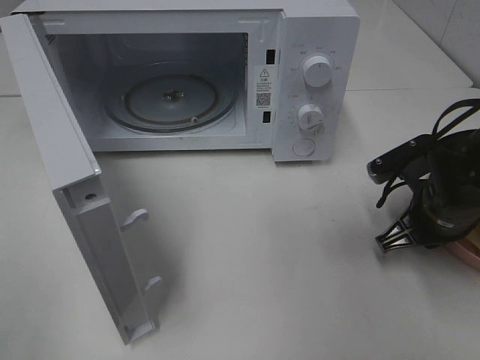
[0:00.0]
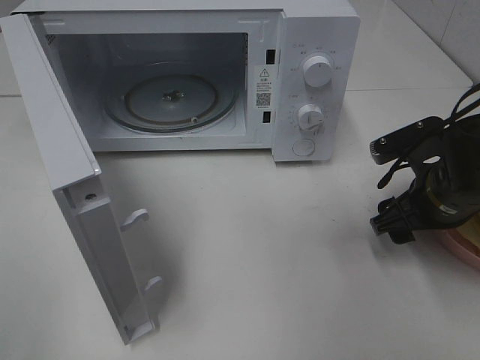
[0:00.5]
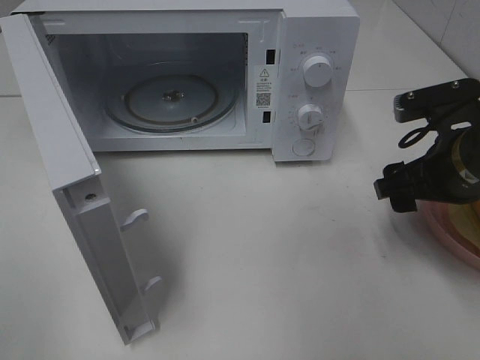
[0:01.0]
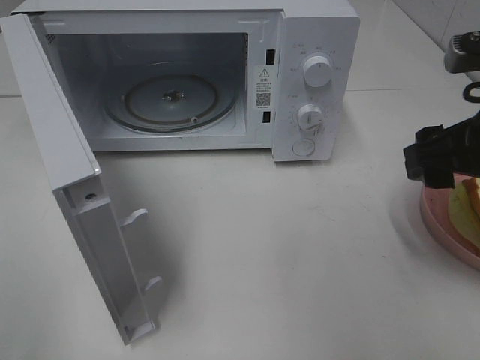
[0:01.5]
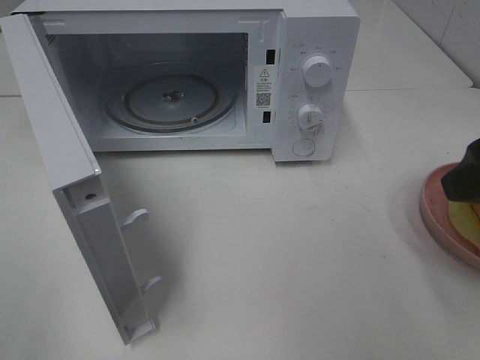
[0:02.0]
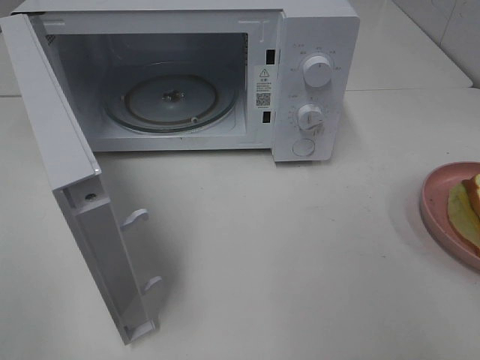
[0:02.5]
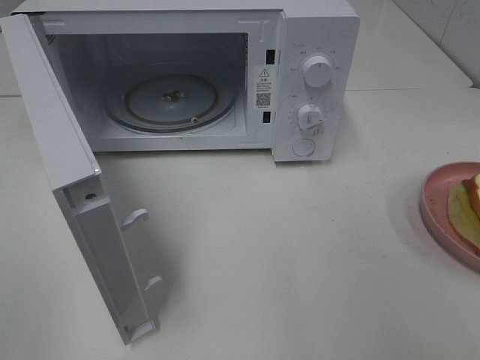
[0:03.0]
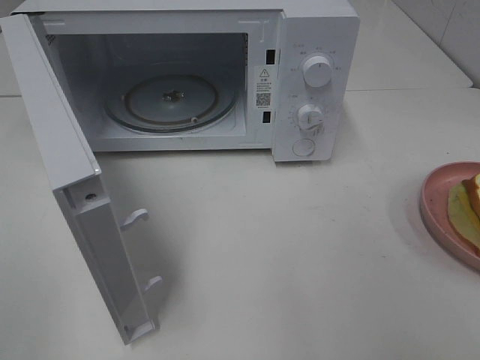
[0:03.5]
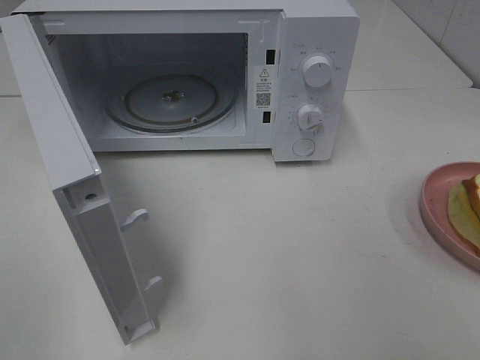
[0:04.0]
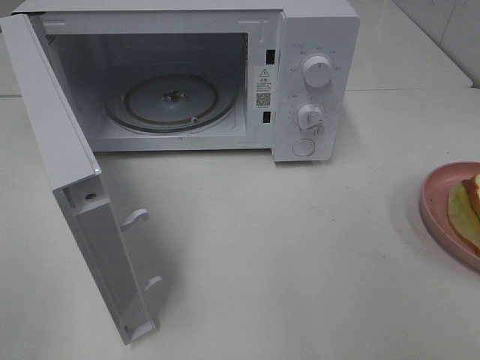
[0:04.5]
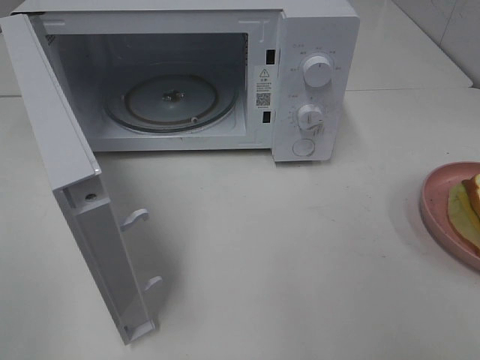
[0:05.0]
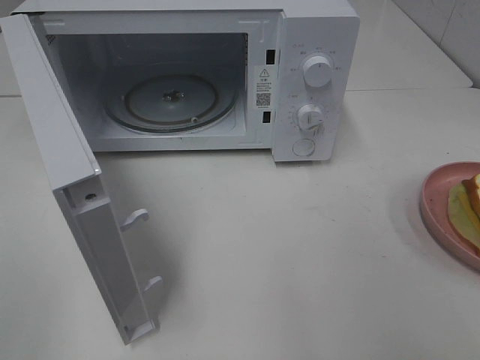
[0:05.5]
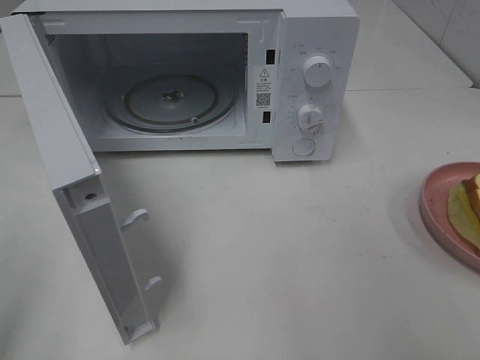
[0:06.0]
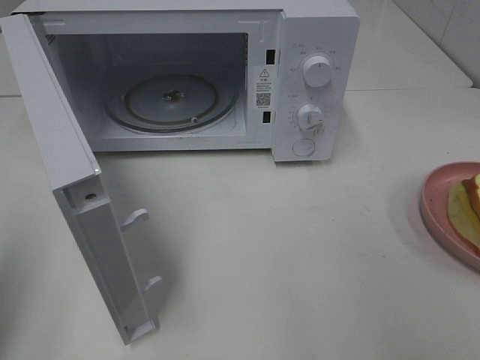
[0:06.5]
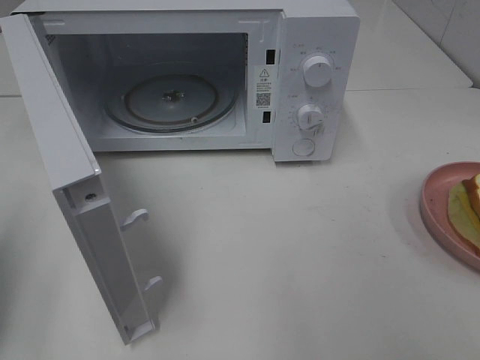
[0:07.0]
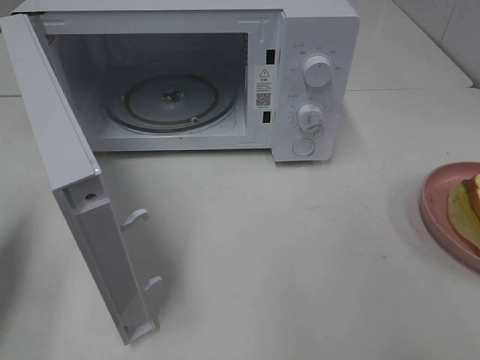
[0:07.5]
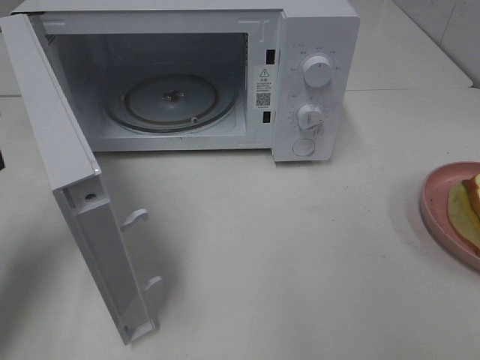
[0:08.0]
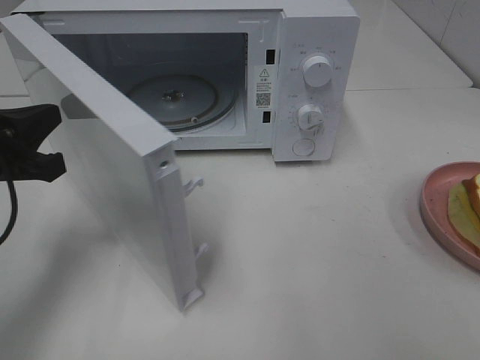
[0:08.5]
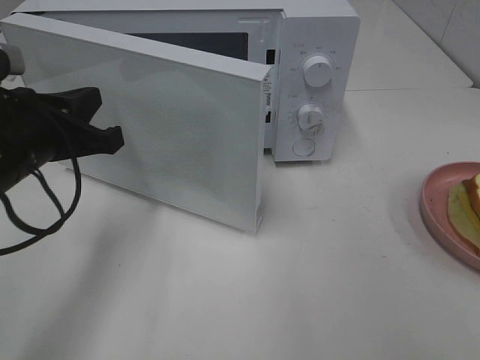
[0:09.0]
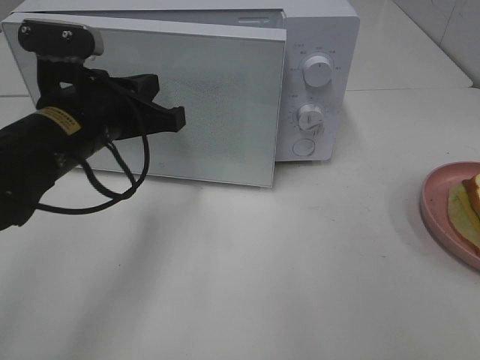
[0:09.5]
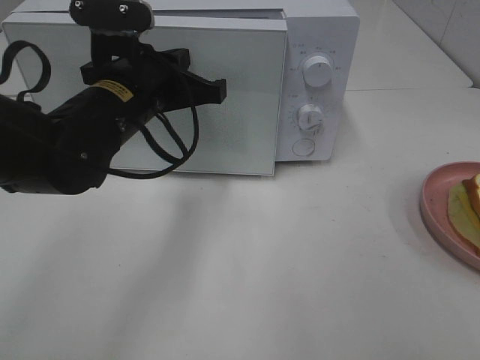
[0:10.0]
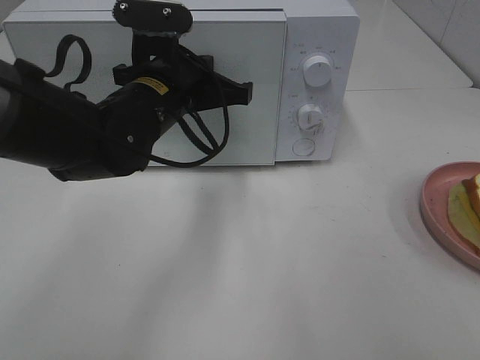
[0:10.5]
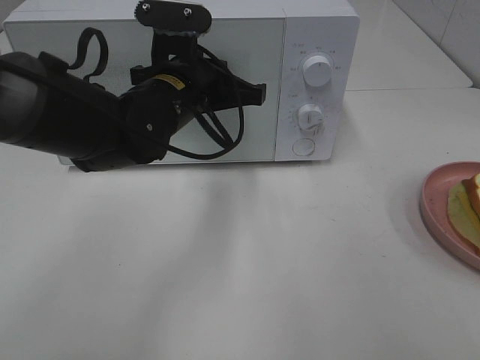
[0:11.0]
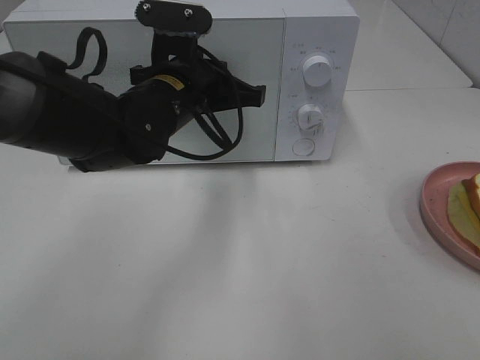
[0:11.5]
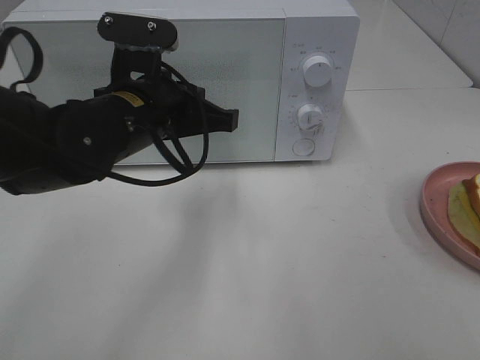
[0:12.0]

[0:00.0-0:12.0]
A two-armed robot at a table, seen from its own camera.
Task of the whole recording: Heat Sandwich.
0:00.0 to 0:02.0: The right gripper is displaced upward and backward by roughly 20 cm, and opens up.
0:02.0 to 0:04.0: The right gripper moves backward, about 15 cm.
0:06.0 to 0:08.0: The left gripper moves forward and downward, some 20 cm, and closes its fingers.
0:08.0 to 0:10.0: The left gripper goes about 20 cm to the right and forward.
0:10.0 to 0:12.0: There are only small adjustments of the grippers.

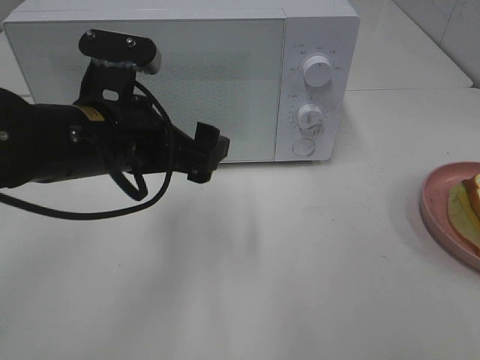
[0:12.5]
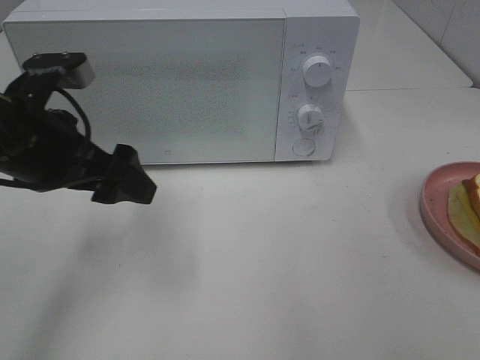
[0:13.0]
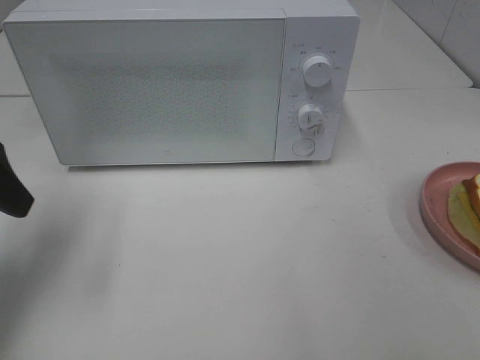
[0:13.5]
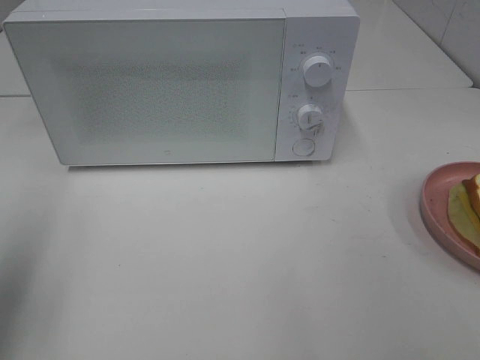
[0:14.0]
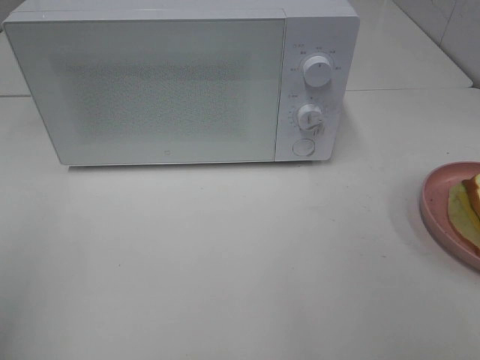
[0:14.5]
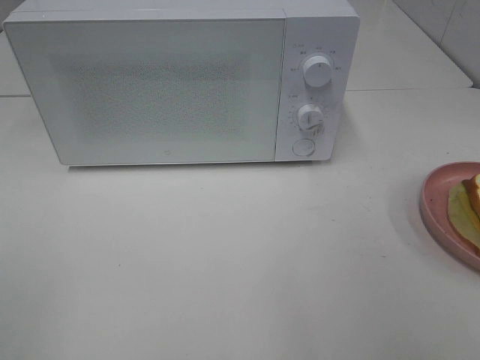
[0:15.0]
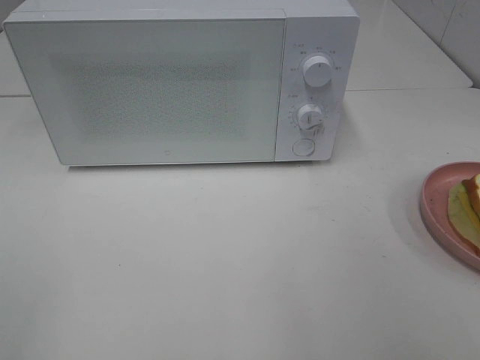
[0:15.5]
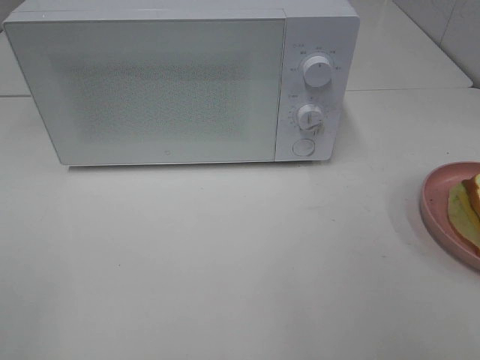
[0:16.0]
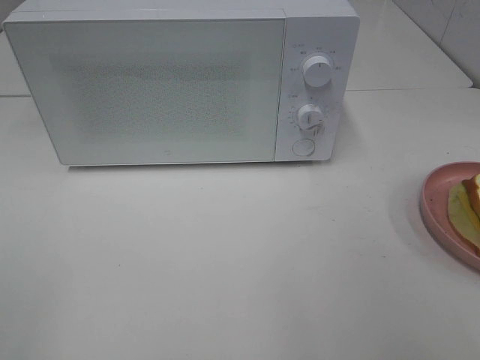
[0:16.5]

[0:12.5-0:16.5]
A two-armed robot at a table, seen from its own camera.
Task of the whole recording: Heat Sandwich.
0:12.5 to 0:14.5: The left gripper travels to the left, backward and upward by some 30 cm.

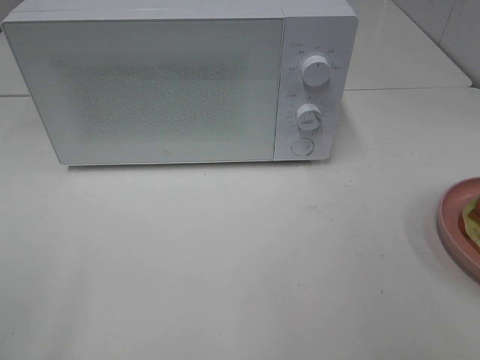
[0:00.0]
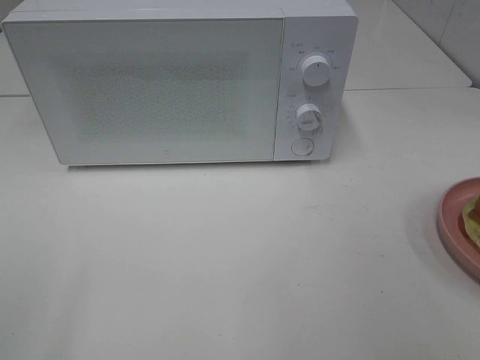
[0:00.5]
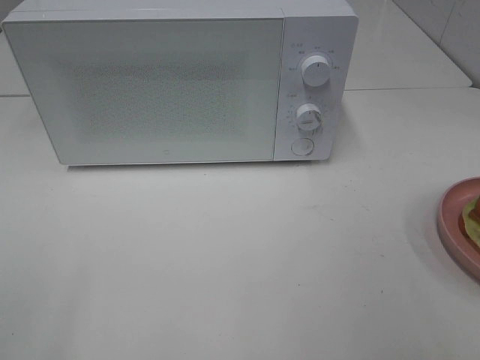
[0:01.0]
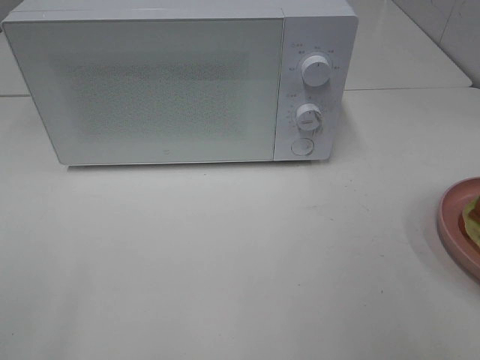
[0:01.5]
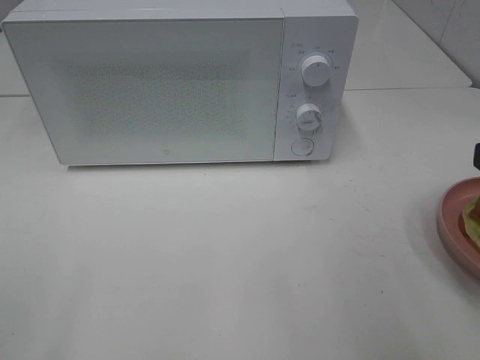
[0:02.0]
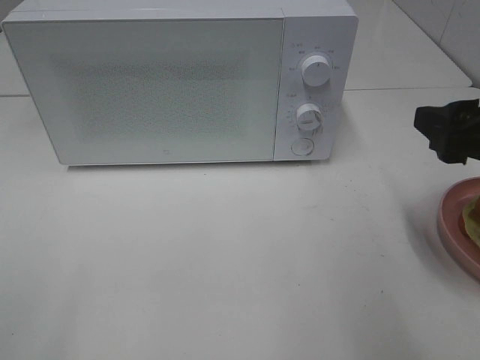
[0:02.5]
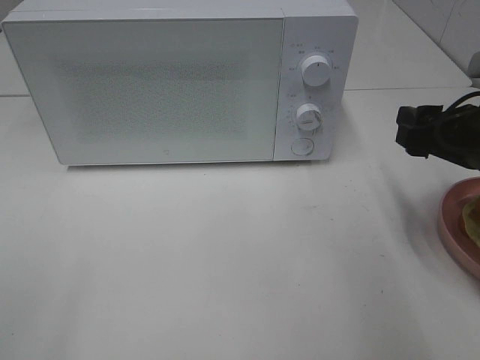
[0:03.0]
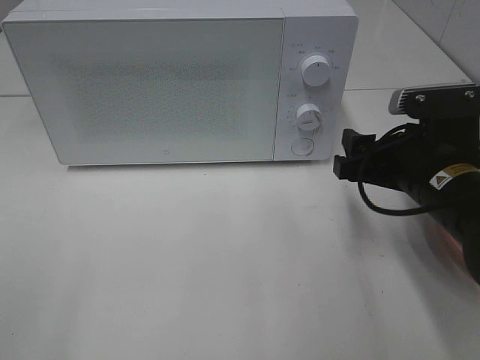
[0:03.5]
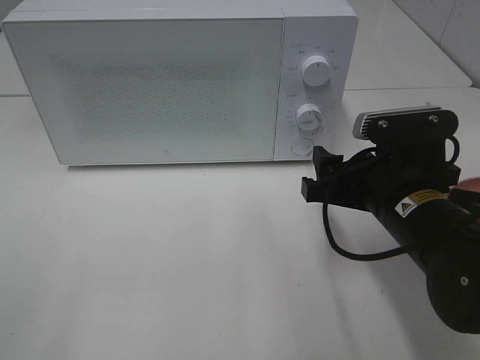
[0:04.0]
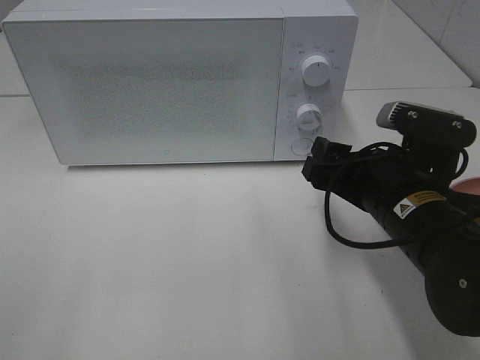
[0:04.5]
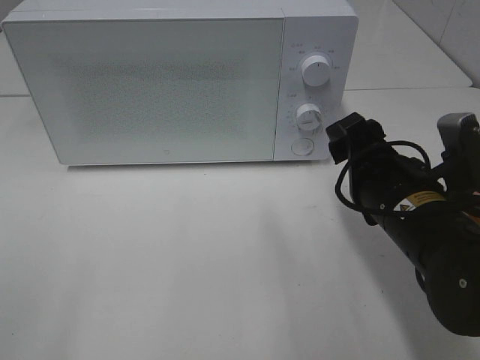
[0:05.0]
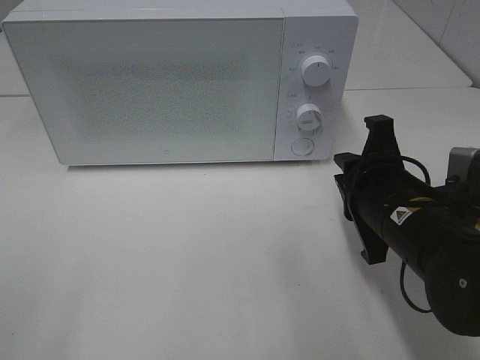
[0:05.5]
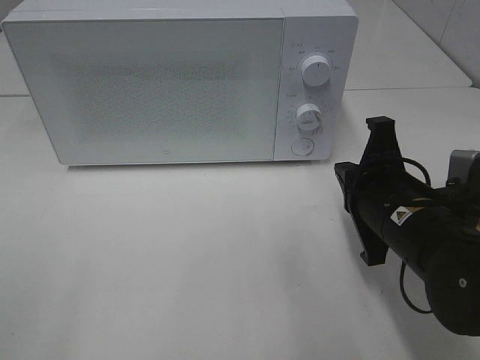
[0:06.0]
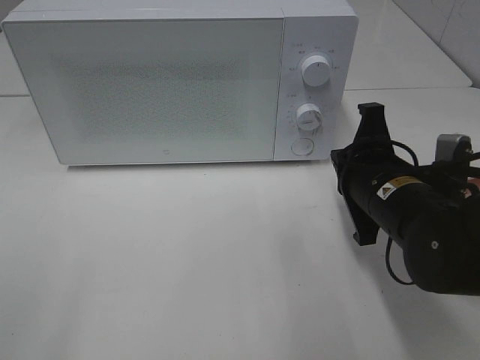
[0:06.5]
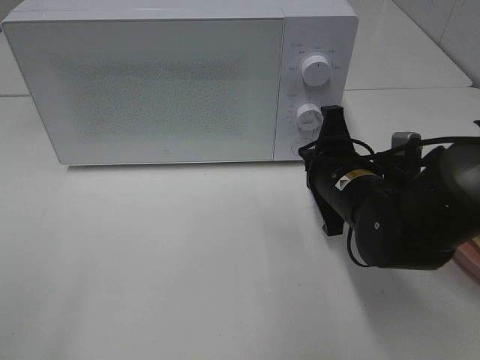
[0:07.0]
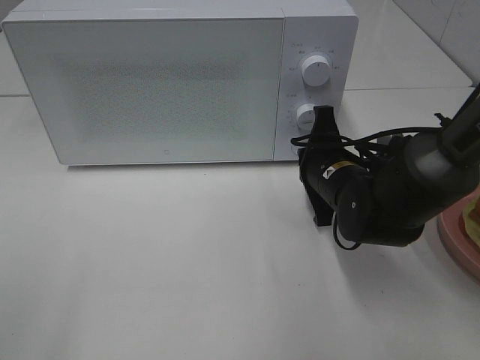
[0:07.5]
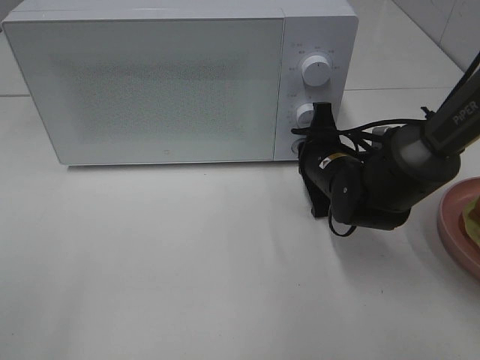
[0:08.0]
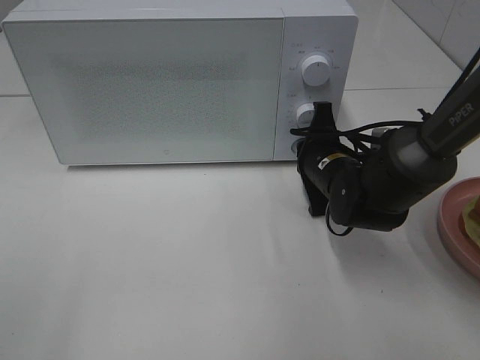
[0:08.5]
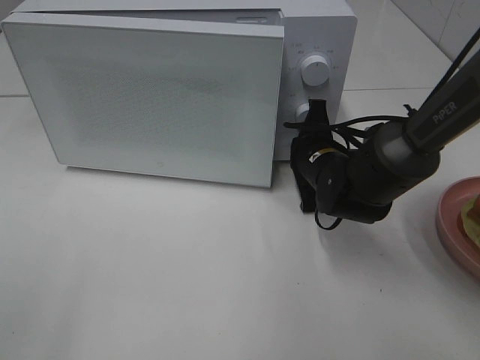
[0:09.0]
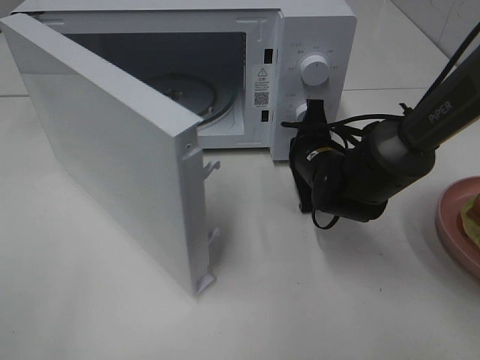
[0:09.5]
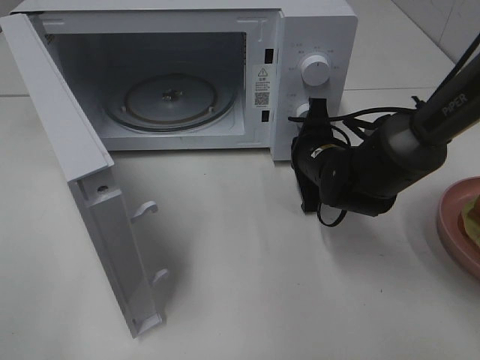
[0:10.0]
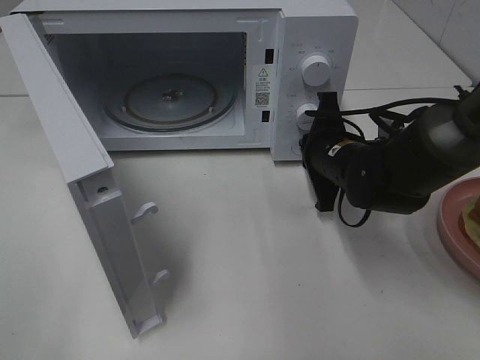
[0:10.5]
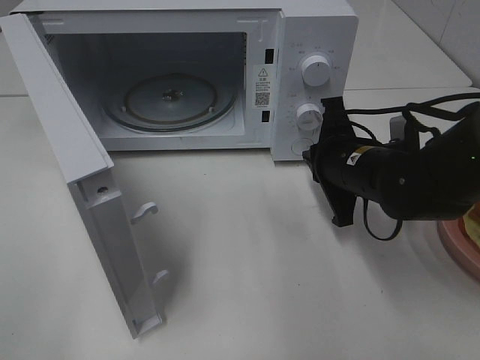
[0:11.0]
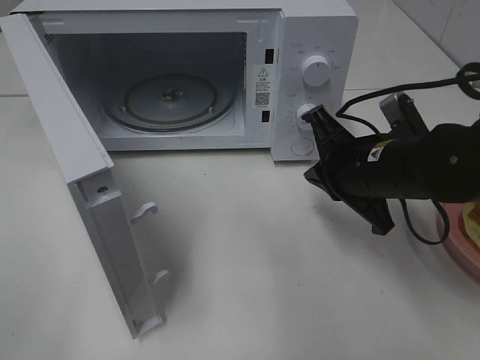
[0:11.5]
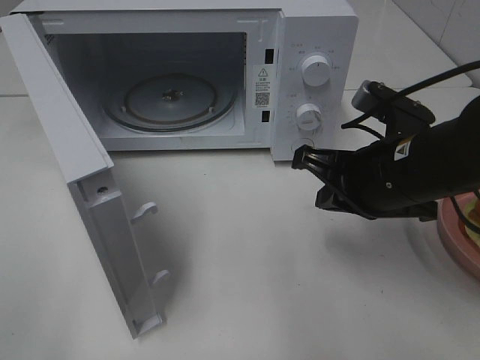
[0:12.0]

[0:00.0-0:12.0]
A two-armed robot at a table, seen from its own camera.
Task of the whole recording: Heat Sandwich.
Step, 0:00.0 to 0:10.5: Right hand: press the switch.
0:02.0 to 0:04.0: The right gripper heads downward, to the left and forward, covering approximately 20 cm.
0:04.0 to 0:06.0: The right gripper closes up.
0:06.0 to 0:08.0: The right gripper shifts about 15 cm forward and downward.
0:10.0 to 0:12.0: The right gripper shifts approximately 15 cm backward and upward.
